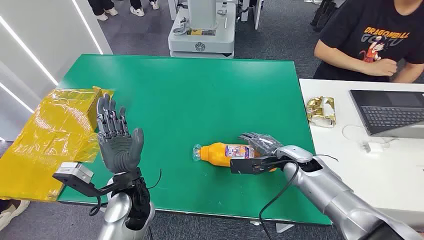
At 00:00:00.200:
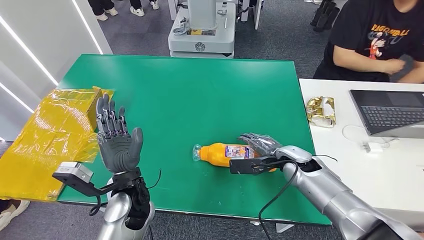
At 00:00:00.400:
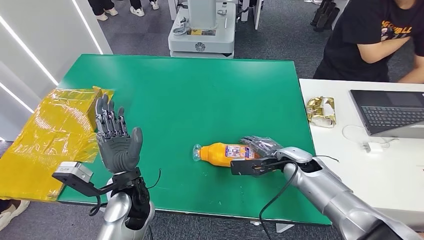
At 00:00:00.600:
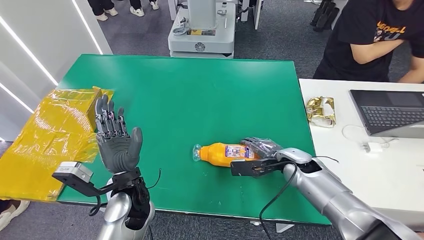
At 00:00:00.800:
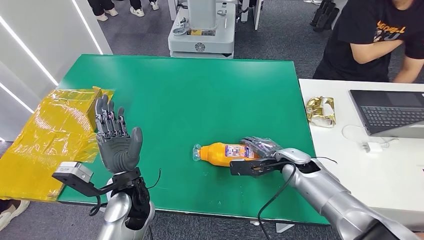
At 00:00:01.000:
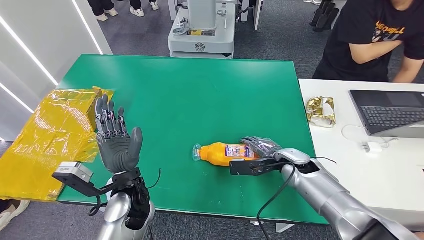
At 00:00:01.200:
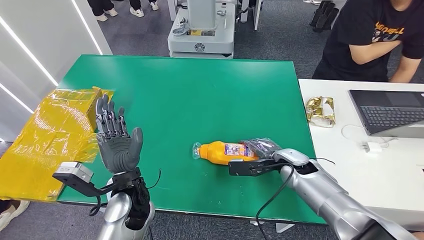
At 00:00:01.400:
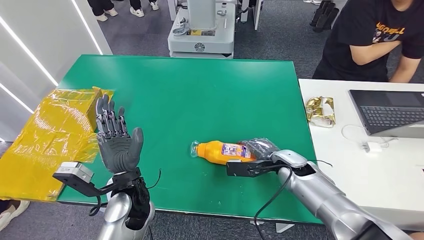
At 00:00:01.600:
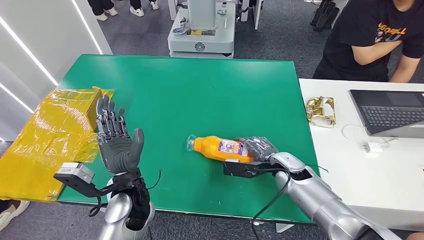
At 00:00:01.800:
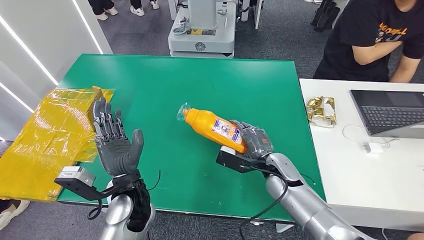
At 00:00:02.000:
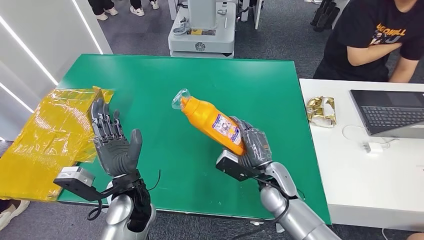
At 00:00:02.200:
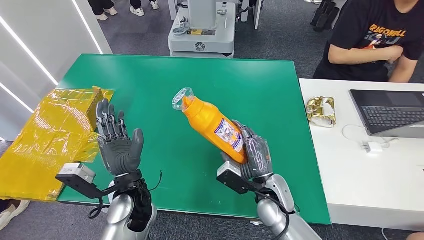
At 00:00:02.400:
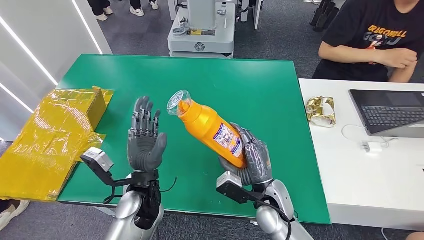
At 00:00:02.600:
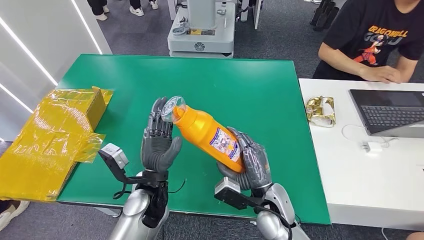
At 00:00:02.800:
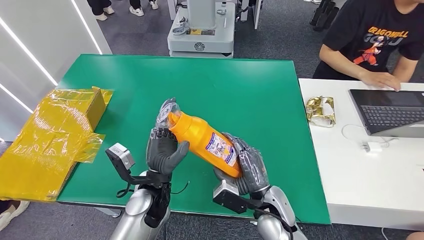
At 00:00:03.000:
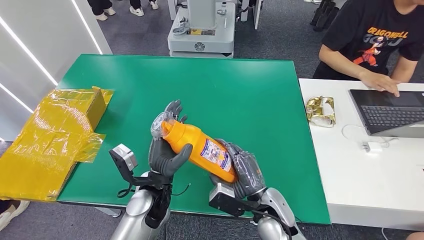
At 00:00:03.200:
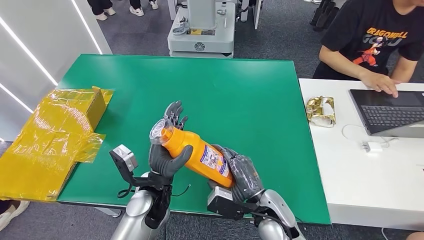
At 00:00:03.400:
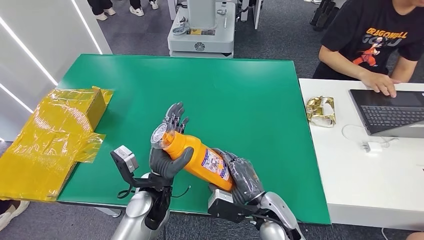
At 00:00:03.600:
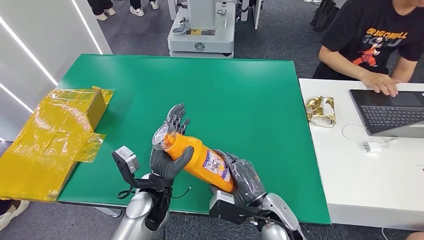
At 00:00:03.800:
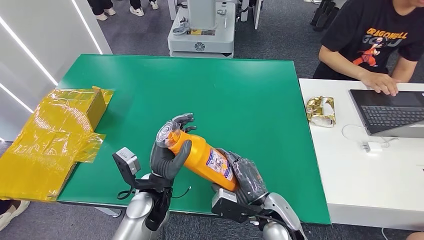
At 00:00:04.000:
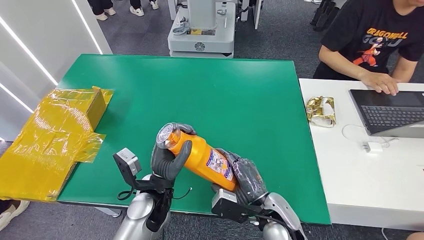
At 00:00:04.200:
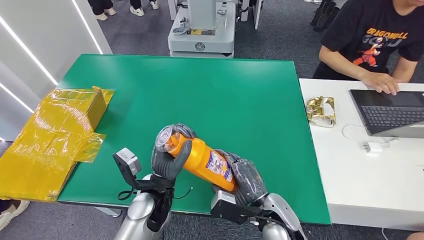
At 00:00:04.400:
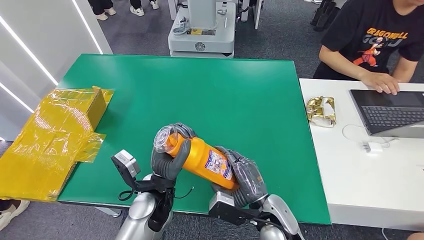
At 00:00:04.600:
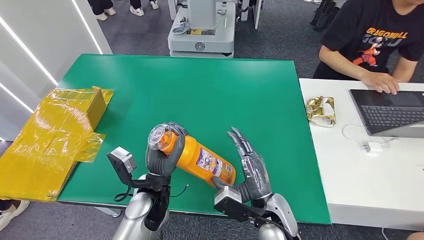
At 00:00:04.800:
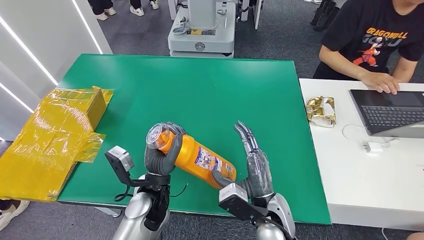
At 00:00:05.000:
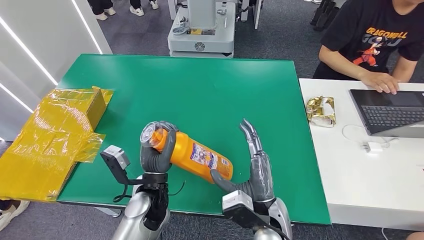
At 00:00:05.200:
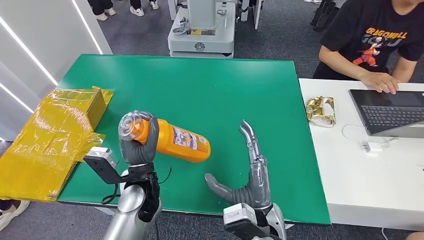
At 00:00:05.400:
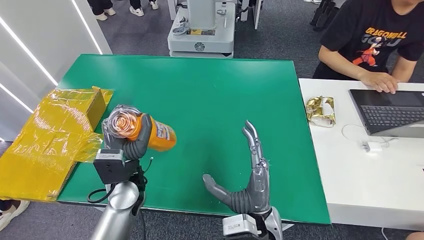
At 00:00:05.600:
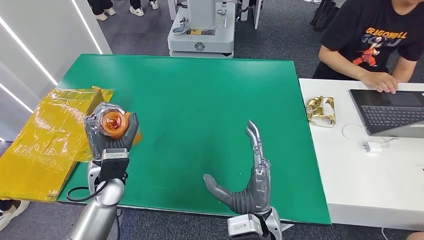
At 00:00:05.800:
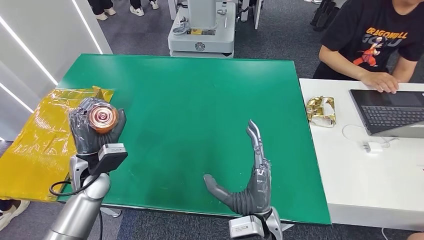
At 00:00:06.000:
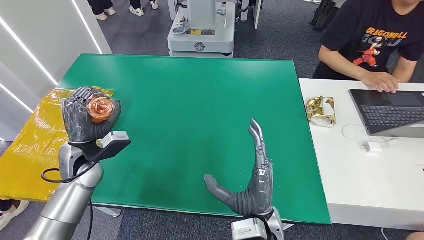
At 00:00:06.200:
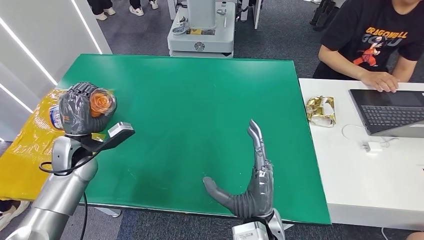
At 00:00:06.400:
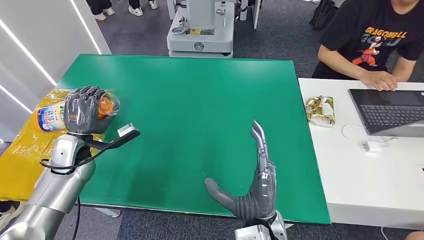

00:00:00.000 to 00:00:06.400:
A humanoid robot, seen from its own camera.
Step, 00:00:00.000 to 00:00:02.200: Pick up the bottle from the table.
Step, 00:00:02.800 to 00:00:06.200: Turn the bottle to the front side.
